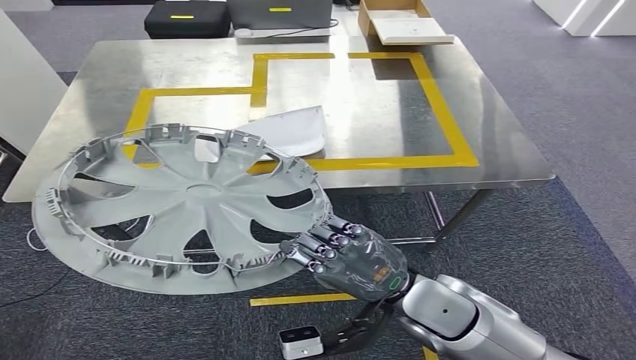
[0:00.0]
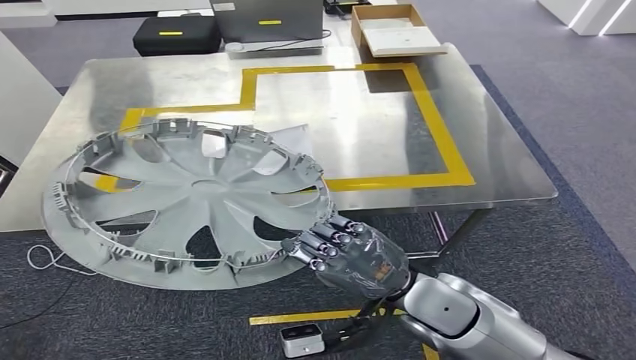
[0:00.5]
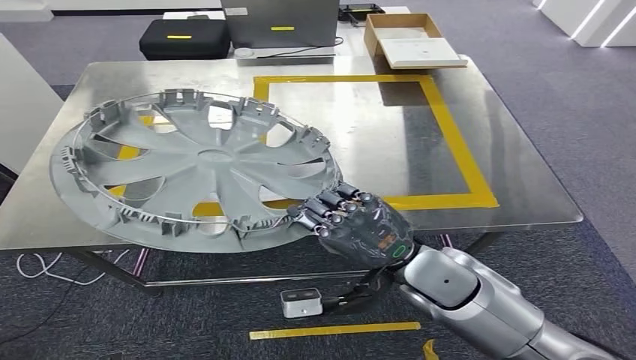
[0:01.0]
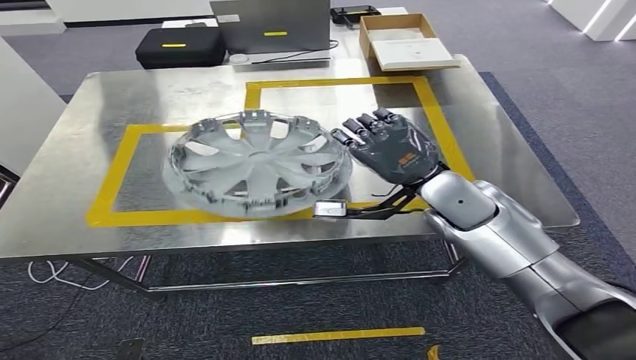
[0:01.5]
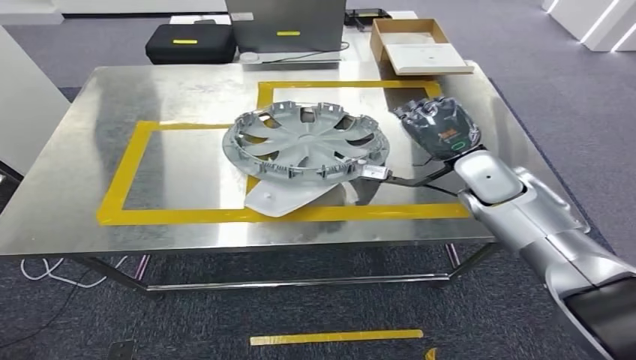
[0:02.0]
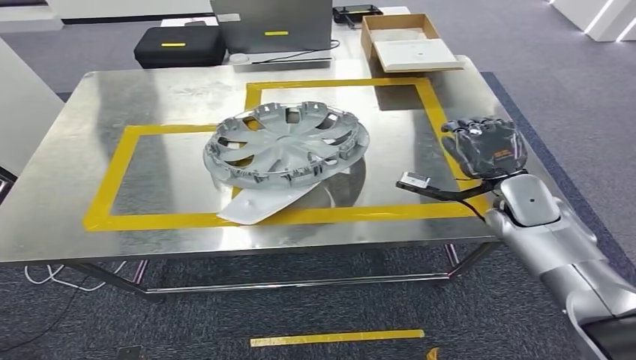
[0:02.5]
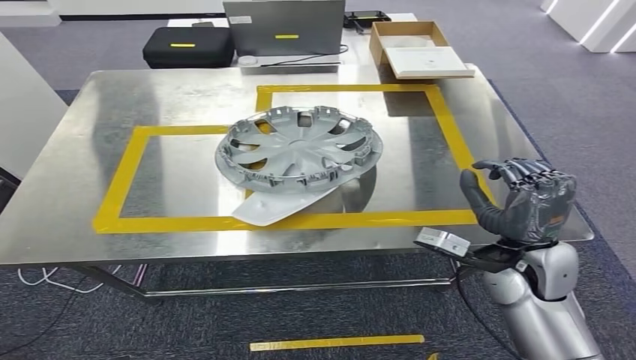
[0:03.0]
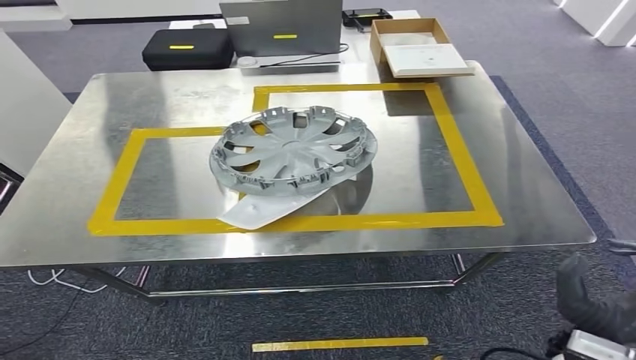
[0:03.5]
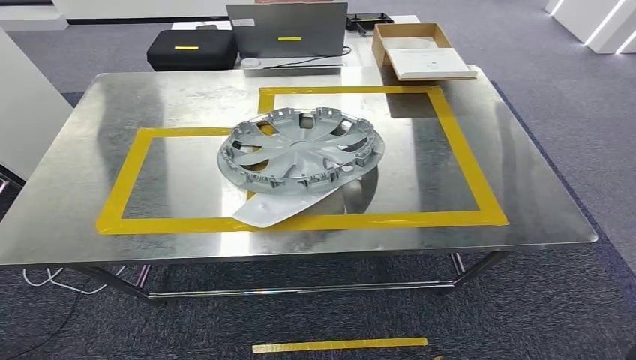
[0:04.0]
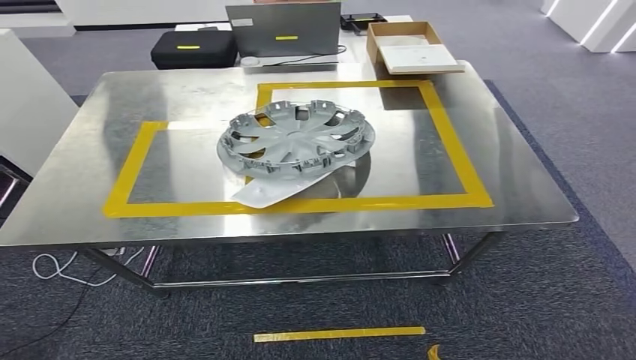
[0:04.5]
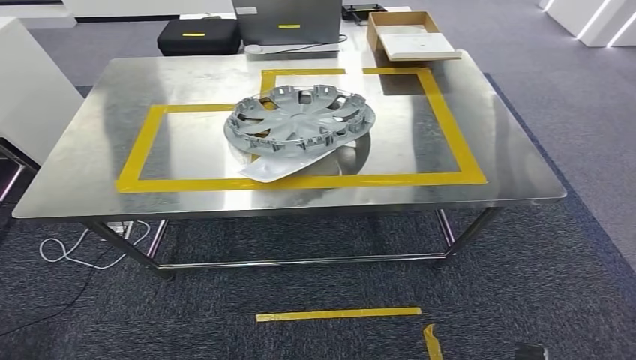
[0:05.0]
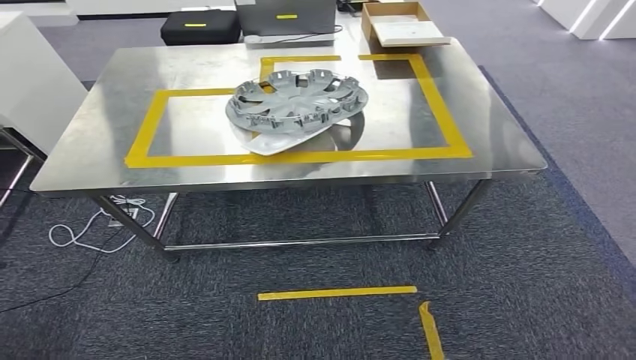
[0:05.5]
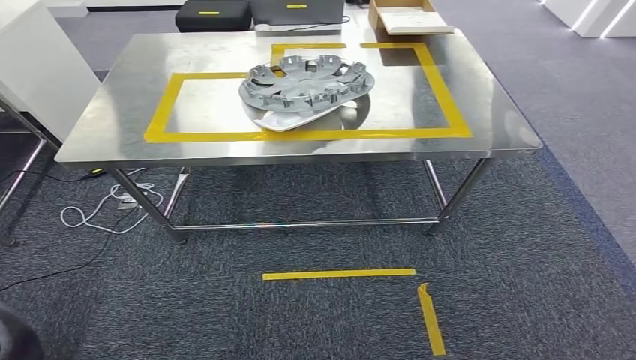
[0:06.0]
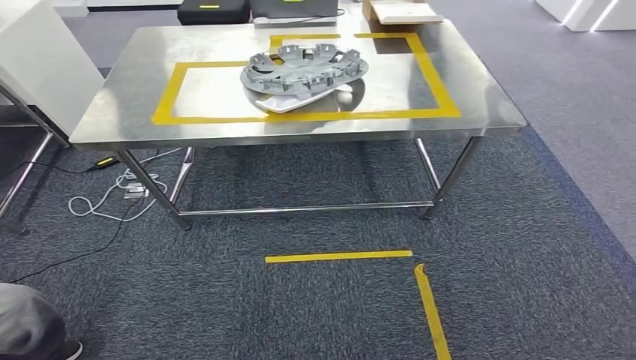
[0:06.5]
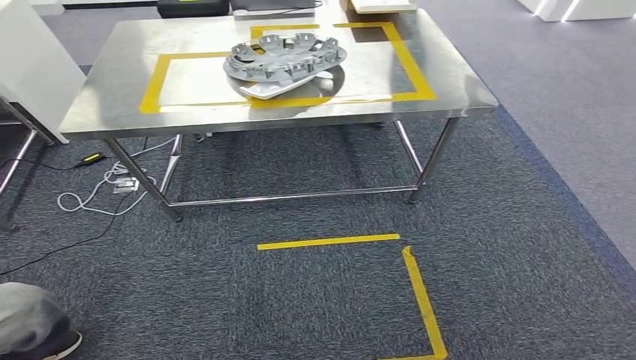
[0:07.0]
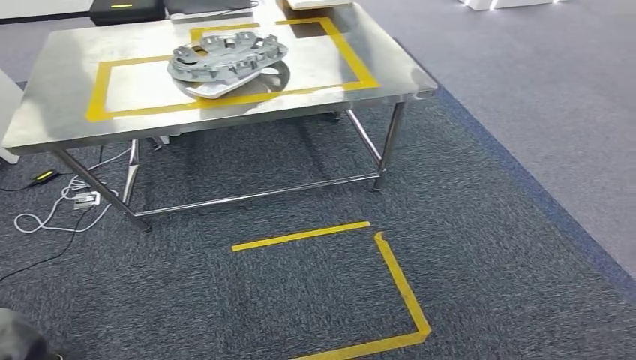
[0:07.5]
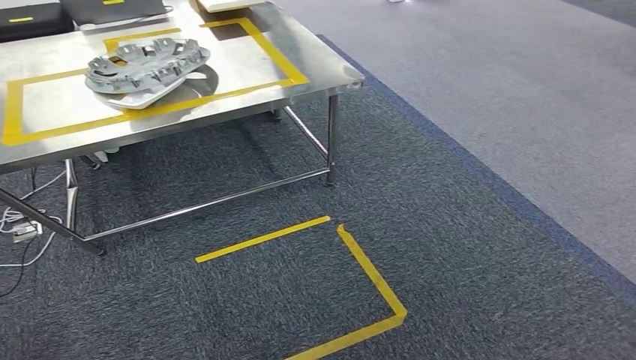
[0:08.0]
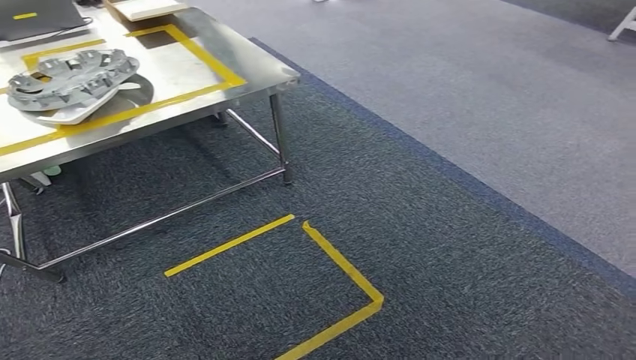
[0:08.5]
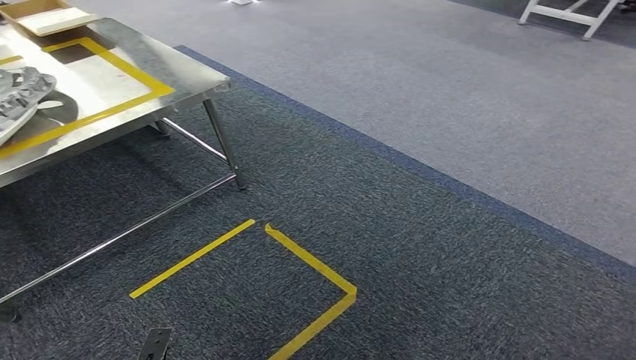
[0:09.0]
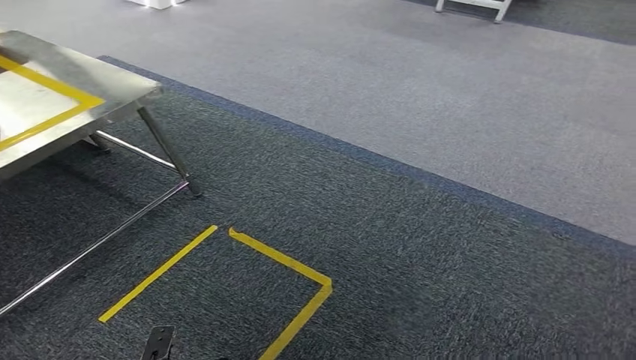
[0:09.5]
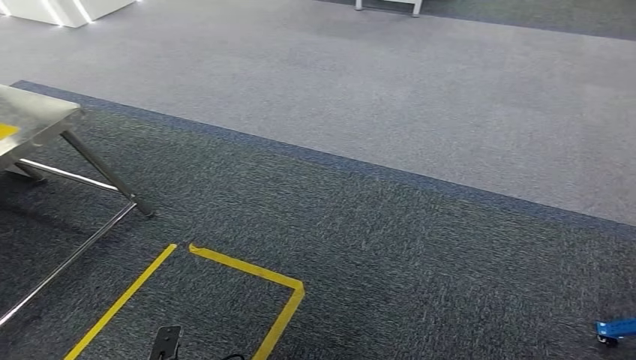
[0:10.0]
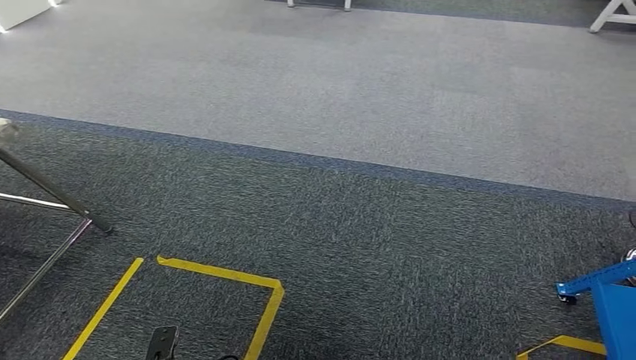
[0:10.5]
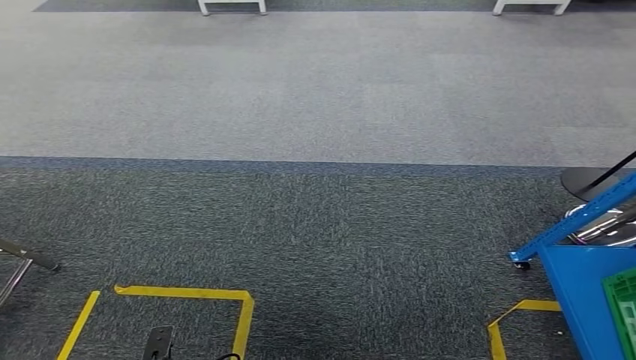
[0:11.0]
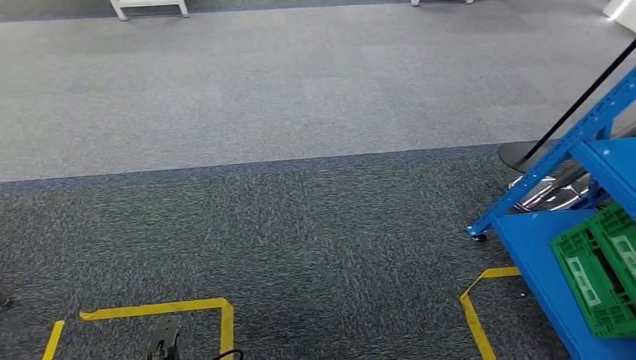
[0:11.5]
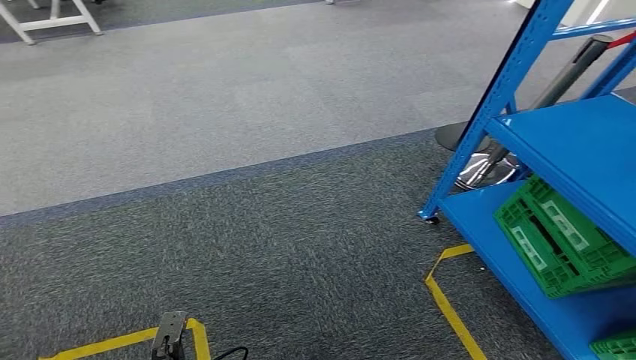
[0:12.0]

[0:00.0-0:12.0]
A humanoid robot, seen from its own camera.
Step, 0:00.0 to 0:04.0: Insert the small component into the corresponding slot on the workbench.

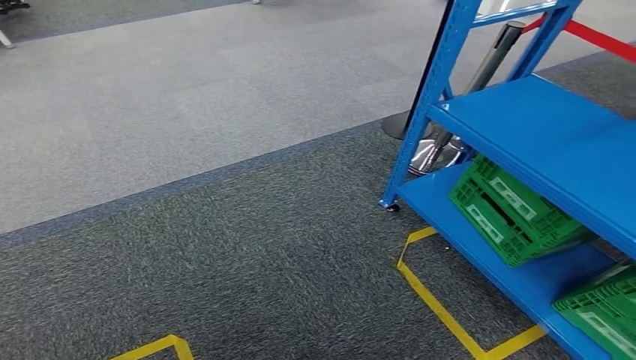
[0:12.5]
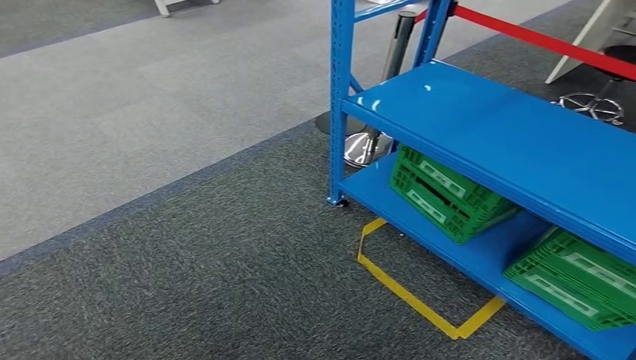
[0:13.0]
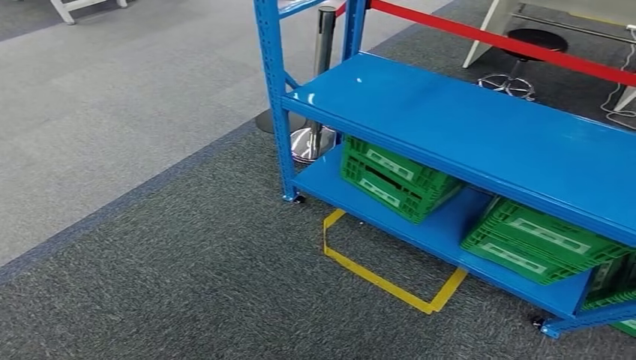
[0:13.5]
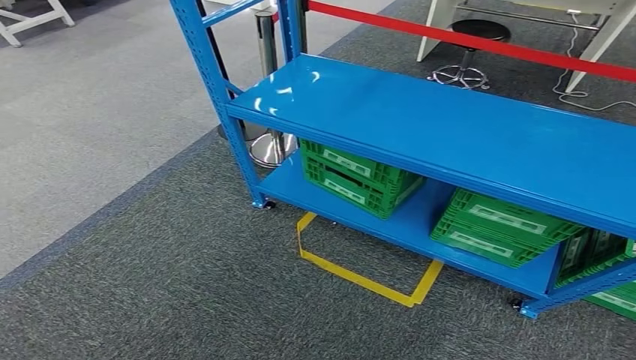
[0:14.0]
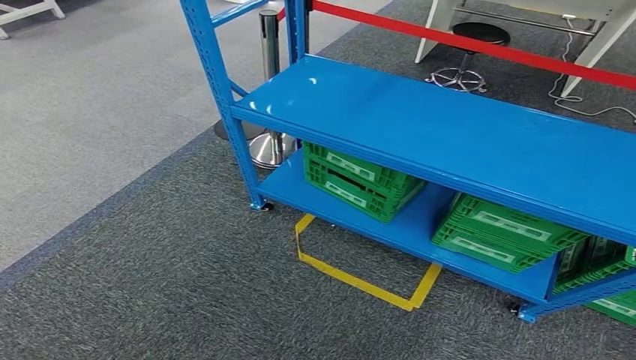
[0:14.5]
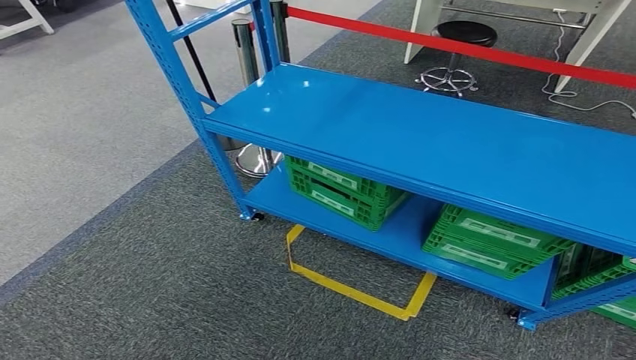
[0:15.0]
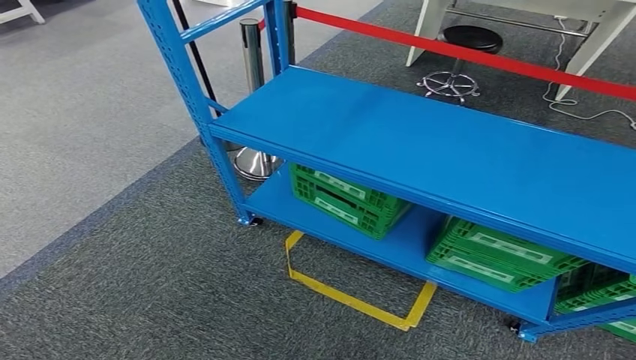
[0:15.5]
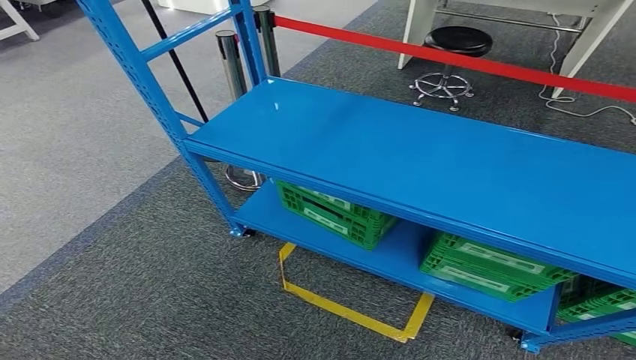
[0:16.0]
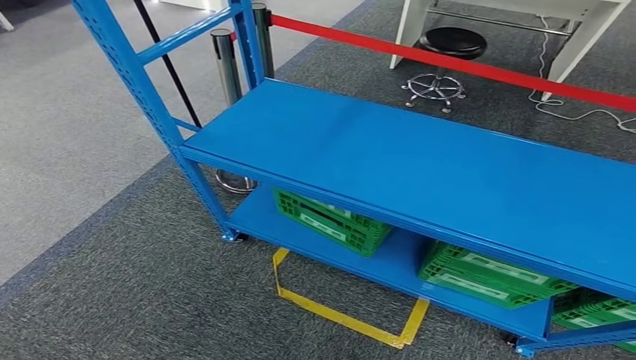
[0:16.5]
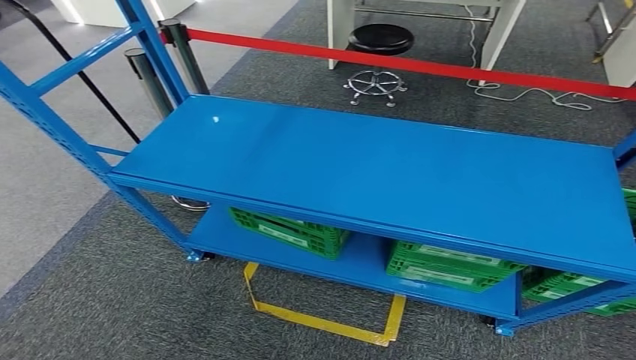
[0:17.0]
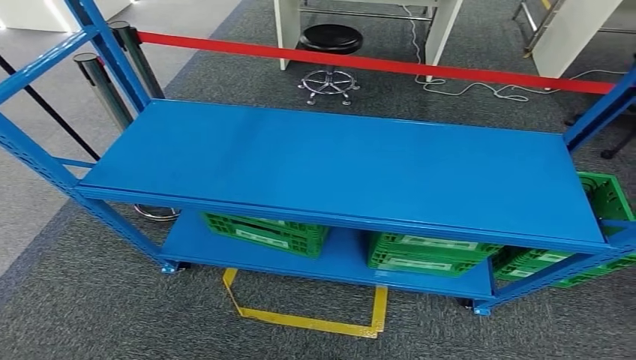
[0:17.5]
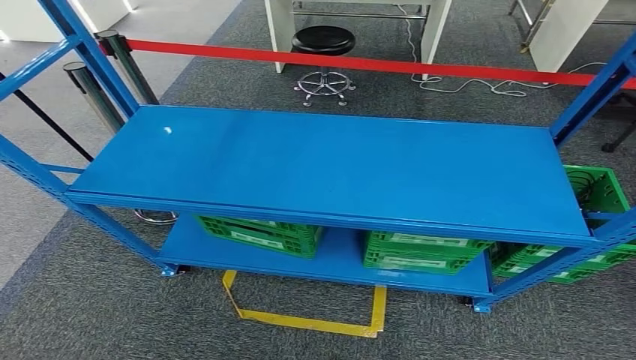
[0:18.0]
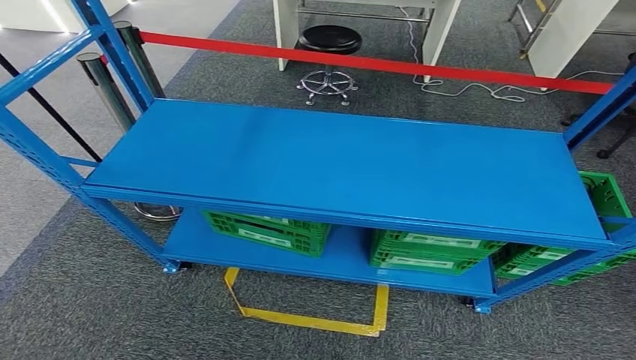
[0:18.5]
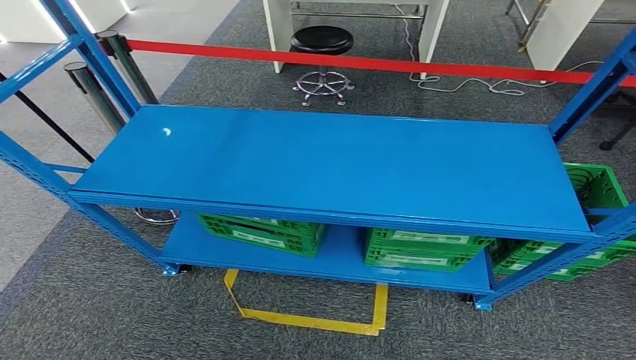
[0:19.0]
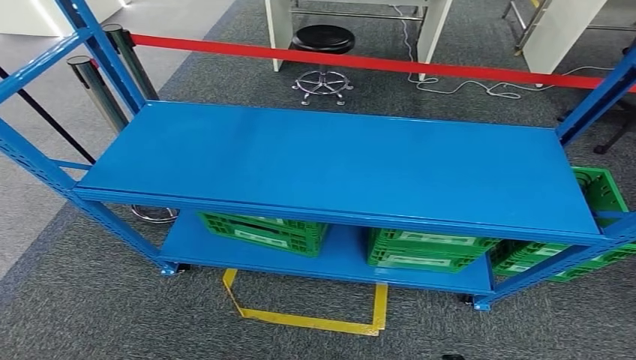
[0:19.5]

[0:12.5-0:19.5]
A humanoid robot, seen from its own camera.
Step, 0:12.5 to 0:19.5: Move to the initial position at the workbench.
0:17.5 to 0:19.5: The right hand heads to the right, covering approximately 5 cm.
